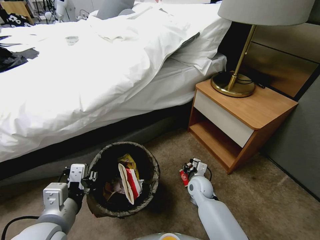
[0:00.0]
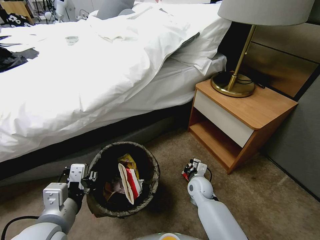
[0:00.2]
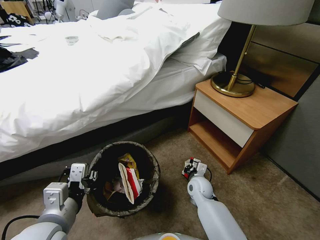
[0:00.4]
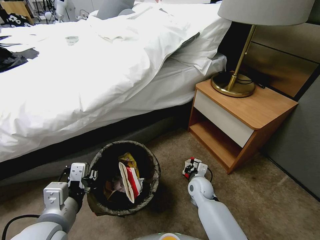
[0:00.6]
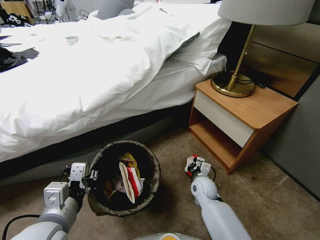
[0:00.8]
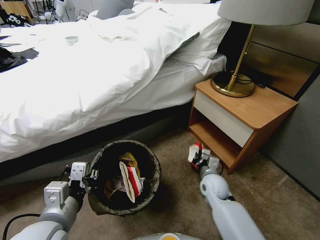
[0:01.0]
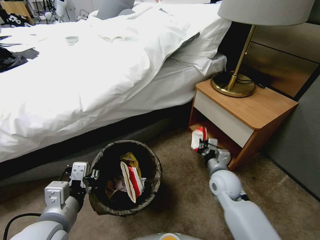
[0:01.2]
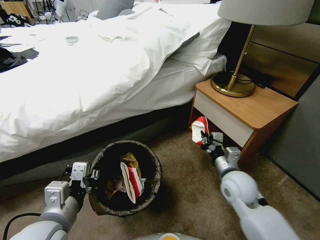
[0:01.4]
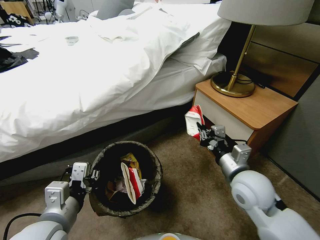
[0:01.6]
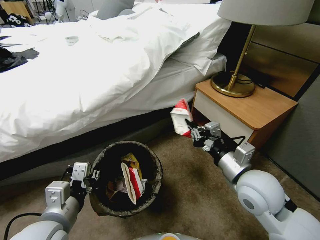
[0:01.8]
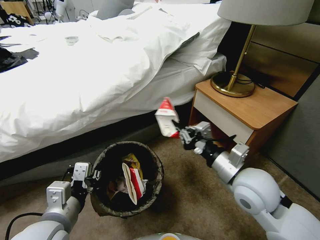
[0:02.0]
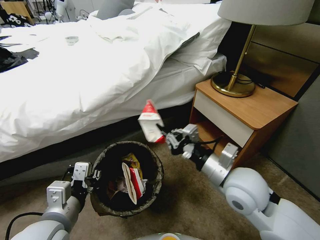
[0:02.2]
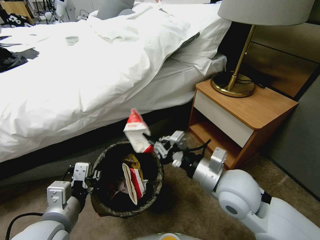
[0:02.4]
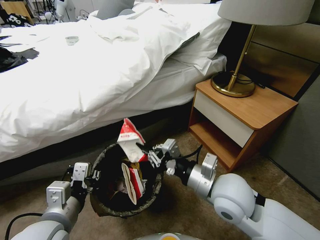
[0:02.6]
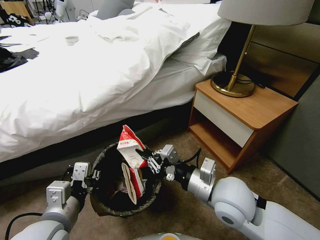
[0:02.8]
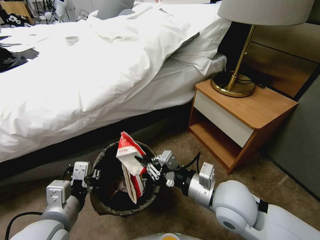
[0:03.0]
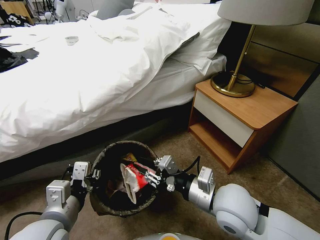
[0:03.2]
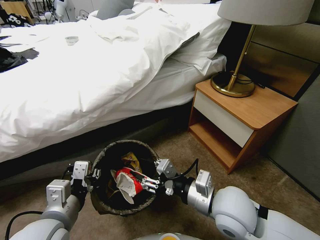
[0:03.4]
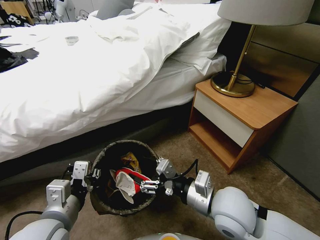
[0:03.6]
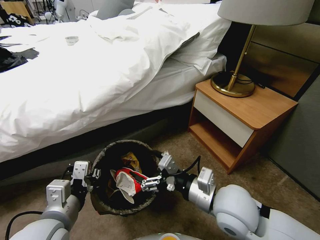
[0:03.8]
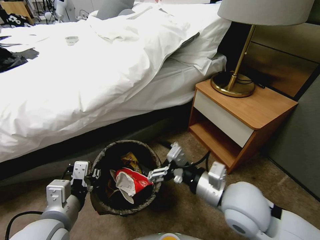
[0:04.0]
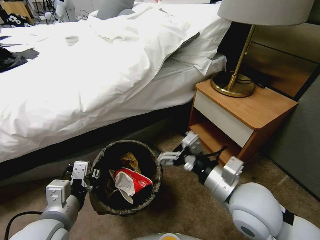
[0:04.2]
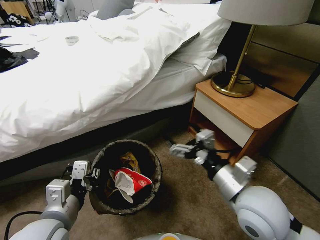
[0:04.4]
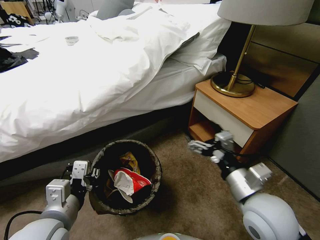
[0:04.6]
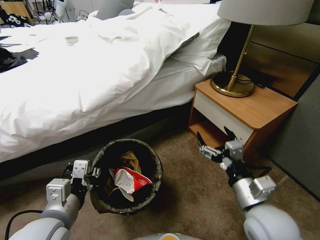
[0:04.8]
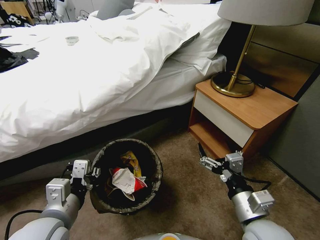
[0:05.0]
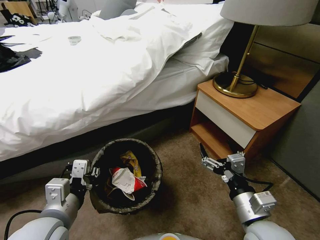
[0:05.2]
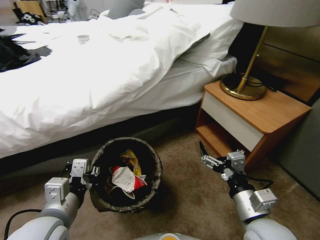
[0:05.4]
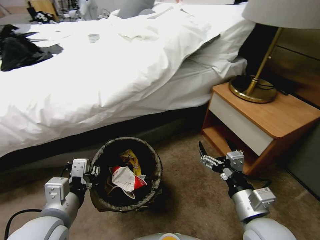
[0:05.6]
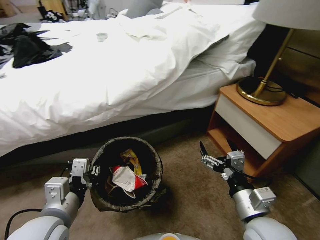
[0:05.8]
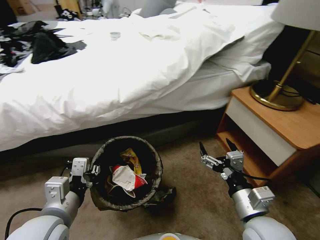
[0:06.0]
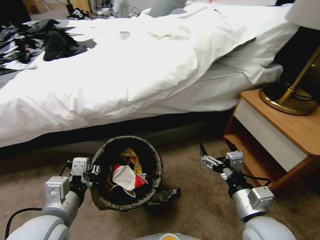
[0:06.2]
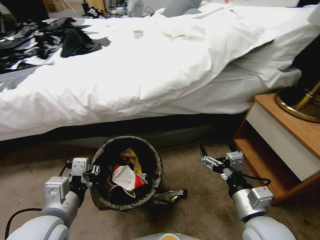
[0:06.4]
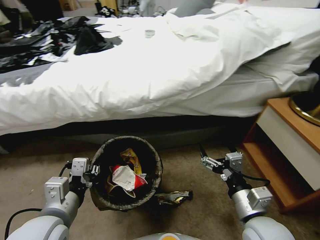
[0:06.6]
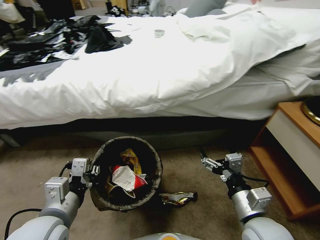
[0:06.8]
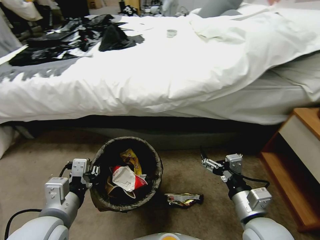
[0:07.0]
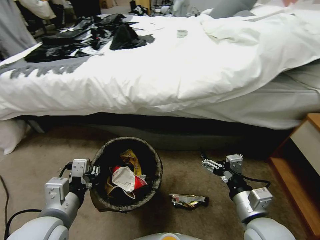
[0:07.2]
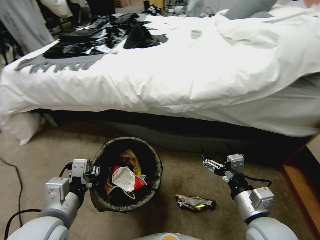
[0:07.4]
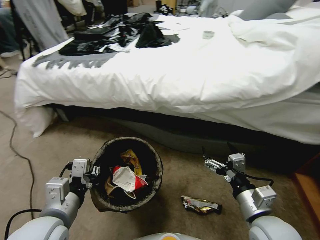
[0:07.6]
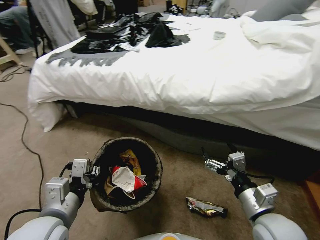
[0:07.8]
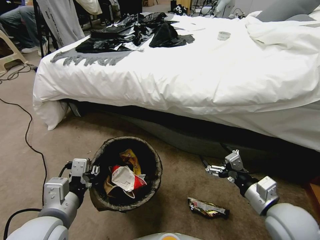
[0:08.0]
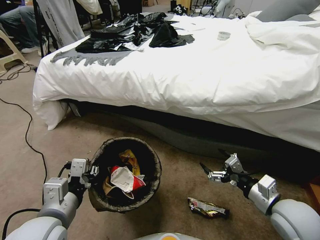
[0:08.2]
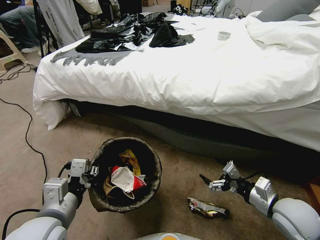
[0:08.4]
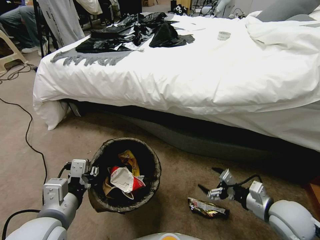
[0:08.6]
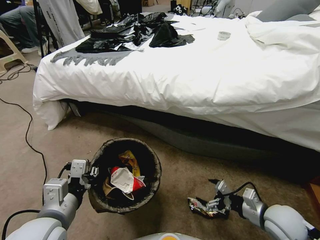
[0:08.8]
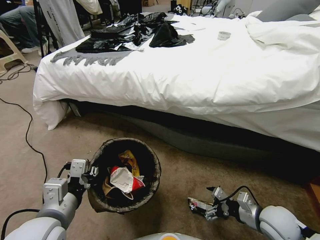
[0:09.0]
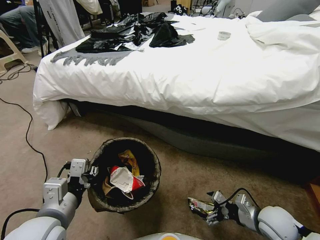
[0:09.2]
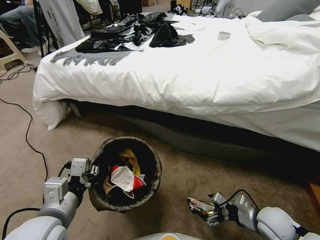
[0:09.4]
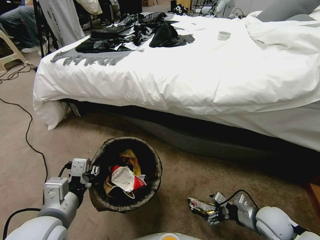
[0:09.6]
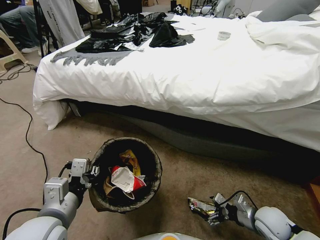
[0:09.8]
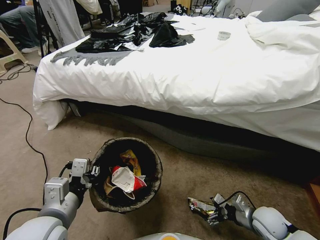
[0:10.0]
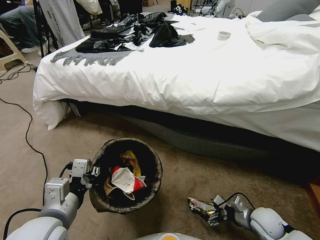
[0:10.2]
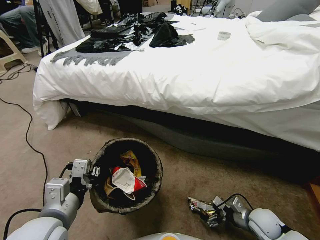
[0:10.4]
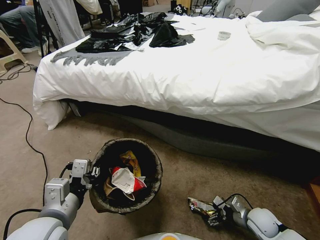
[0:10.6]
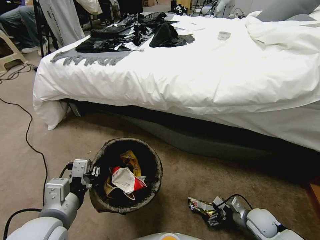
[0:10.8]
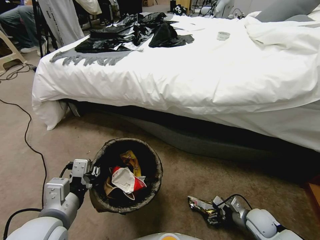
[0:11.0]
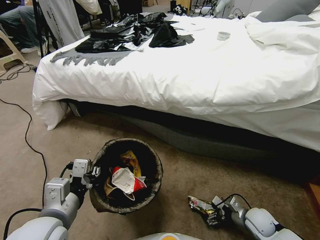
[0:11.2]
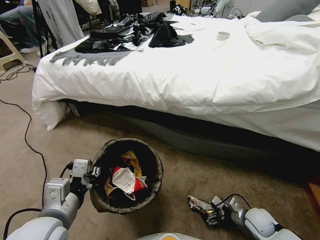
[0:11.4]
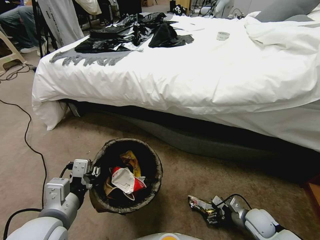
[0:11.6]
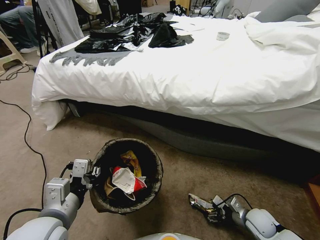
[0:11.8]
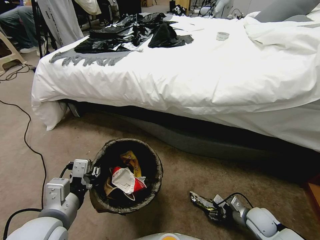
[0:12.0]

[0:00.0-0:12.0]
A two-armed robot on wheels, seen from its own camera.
Task of the whole recording: Pick up the trash bin, then pick up the garbage from the floor and place it into the trash bin.
0:00.0 to 0:01.6: The right gripper heads upward, covering some 25 cm, and closes its fingers.
0:01.6 to 0:03.0: The right gripper goes about 5 cm to the left.
0:03.0 to 0:04.4: The right gripper shifts by roughly 5 cm, and opens.
0:04.4 to 0:06.0: The right gripper is displaced downward by some 5 cm.
0:07.6 to 0:09.0: The right gripper travels downward and to the right by some 15 cm.
0:09.0 to 0:10.4: The right gripper heads downward, covering roughly 10 cm.
0:10.4 to 0:12.0: The right gripper closes its fingers.

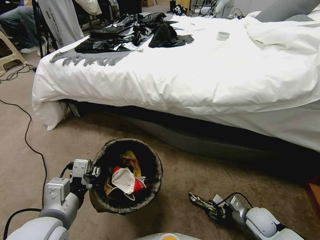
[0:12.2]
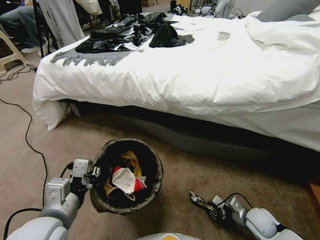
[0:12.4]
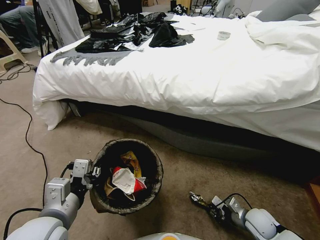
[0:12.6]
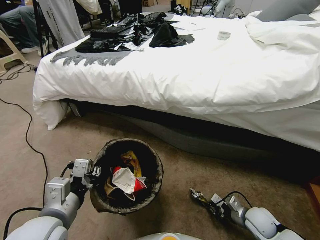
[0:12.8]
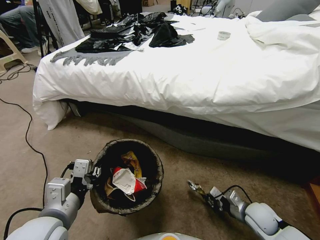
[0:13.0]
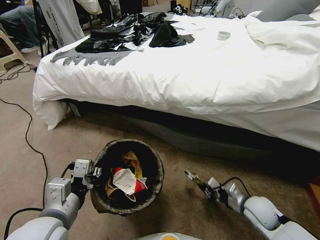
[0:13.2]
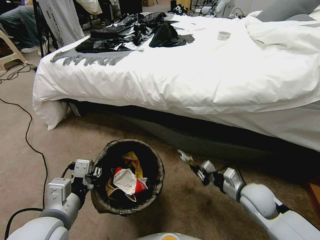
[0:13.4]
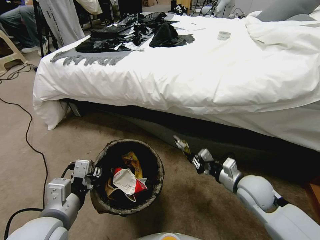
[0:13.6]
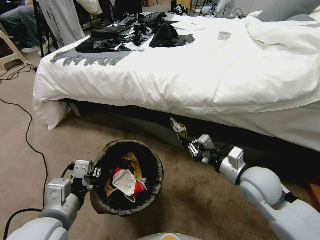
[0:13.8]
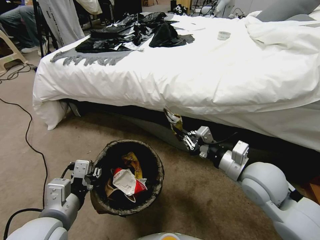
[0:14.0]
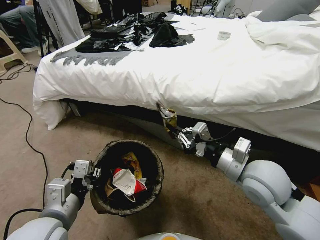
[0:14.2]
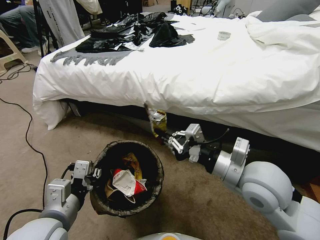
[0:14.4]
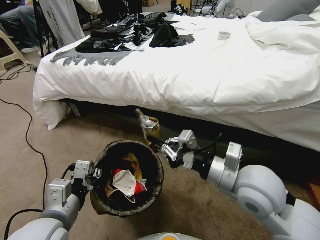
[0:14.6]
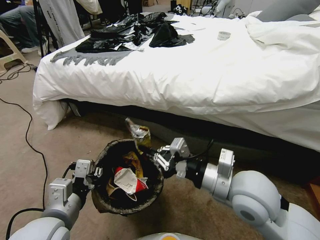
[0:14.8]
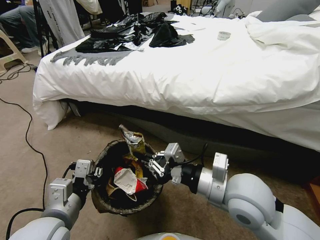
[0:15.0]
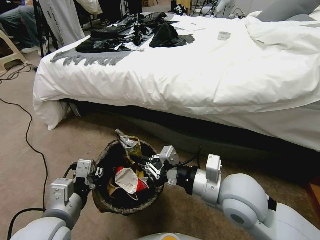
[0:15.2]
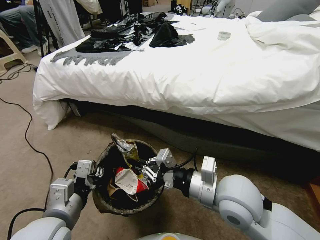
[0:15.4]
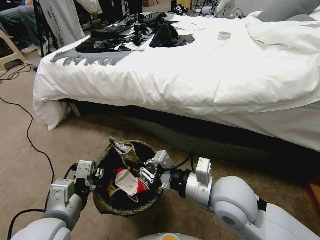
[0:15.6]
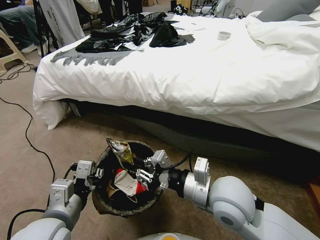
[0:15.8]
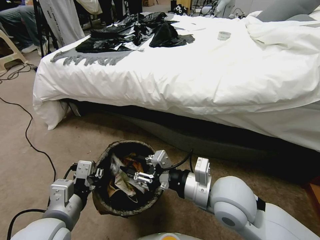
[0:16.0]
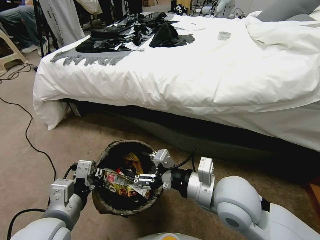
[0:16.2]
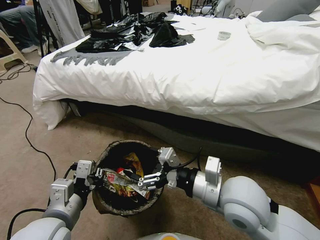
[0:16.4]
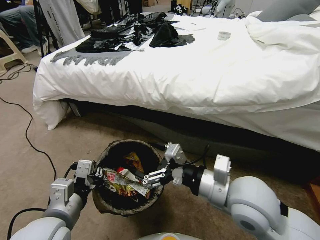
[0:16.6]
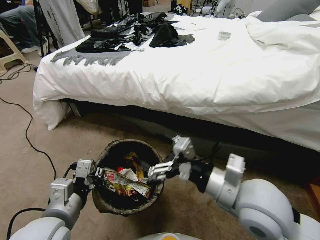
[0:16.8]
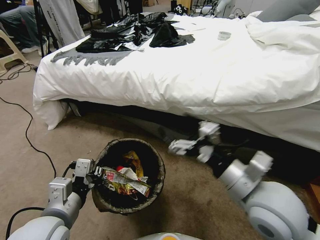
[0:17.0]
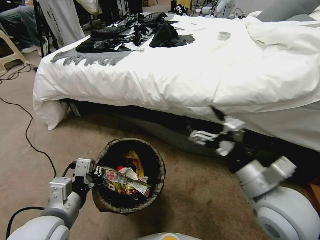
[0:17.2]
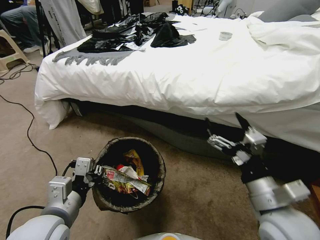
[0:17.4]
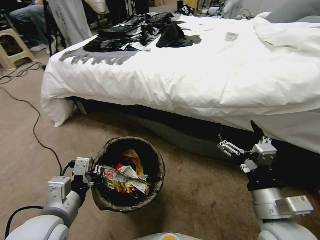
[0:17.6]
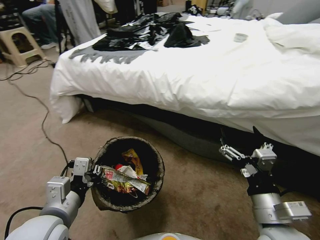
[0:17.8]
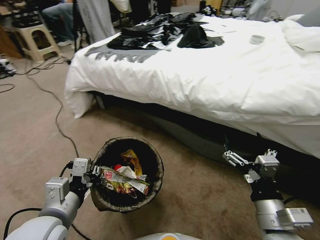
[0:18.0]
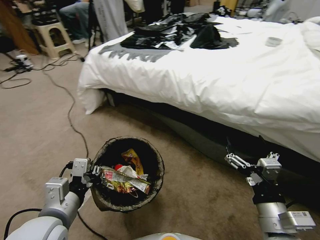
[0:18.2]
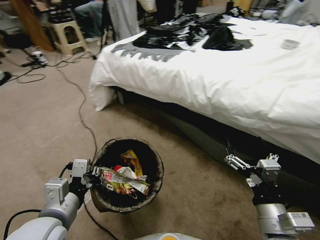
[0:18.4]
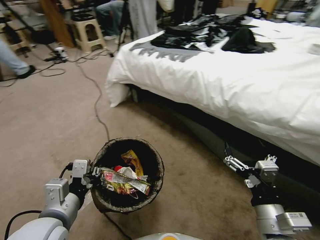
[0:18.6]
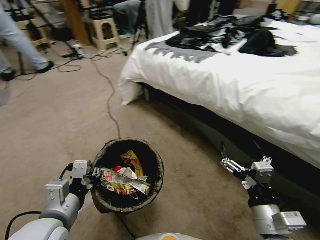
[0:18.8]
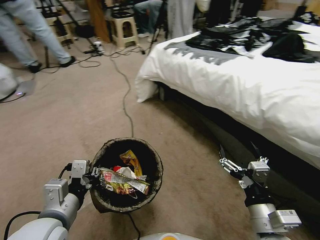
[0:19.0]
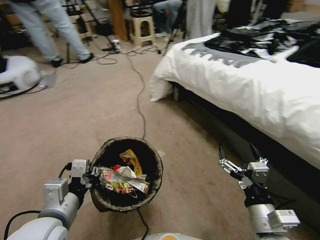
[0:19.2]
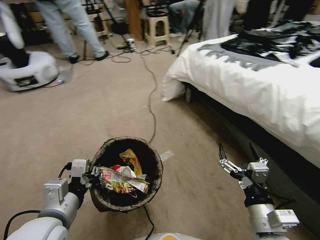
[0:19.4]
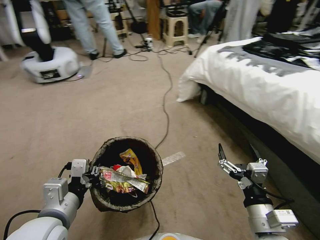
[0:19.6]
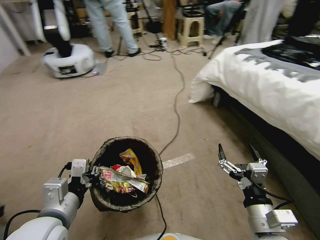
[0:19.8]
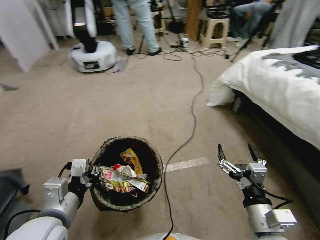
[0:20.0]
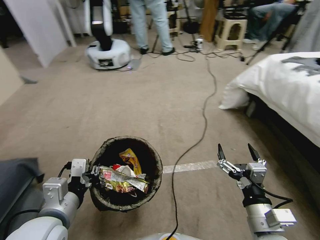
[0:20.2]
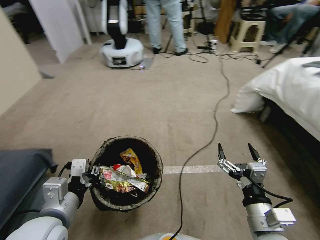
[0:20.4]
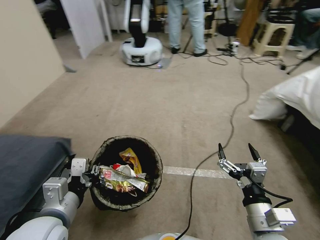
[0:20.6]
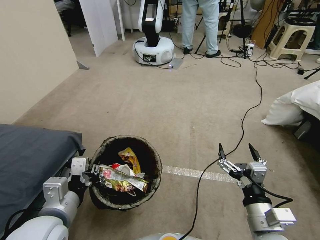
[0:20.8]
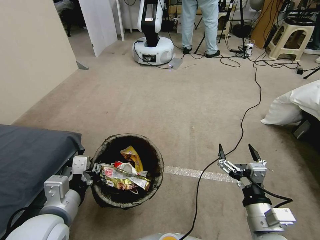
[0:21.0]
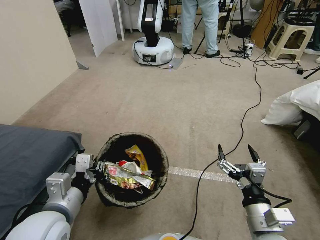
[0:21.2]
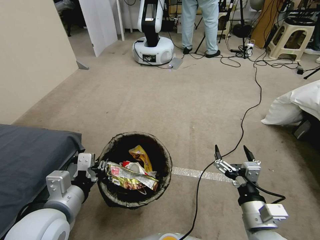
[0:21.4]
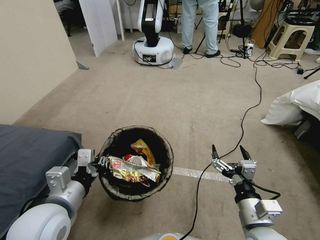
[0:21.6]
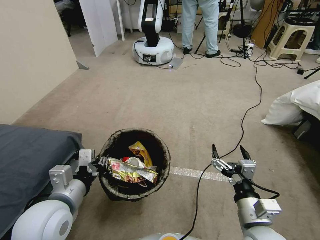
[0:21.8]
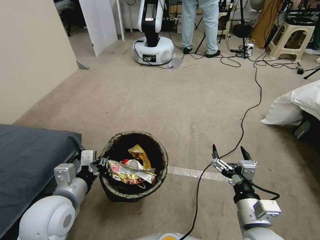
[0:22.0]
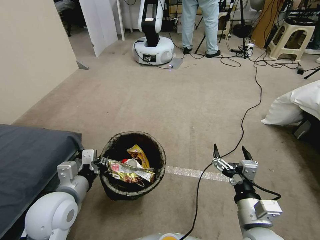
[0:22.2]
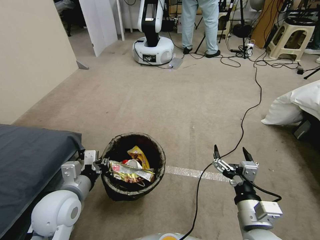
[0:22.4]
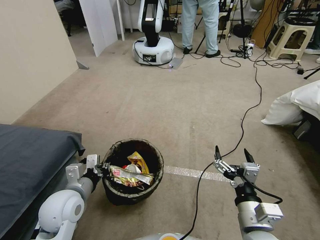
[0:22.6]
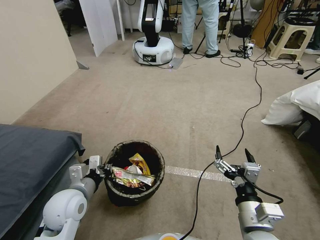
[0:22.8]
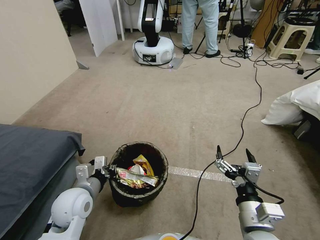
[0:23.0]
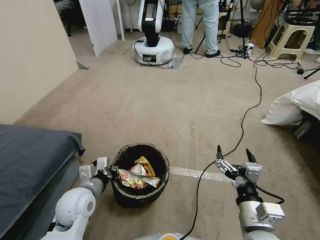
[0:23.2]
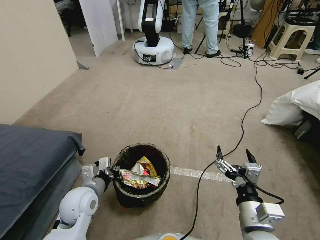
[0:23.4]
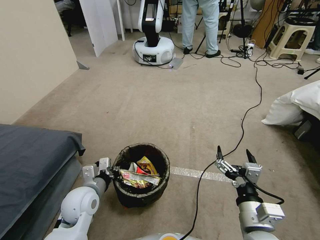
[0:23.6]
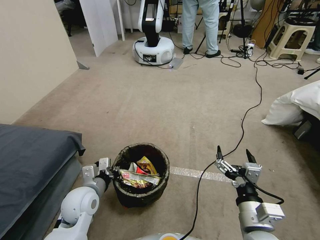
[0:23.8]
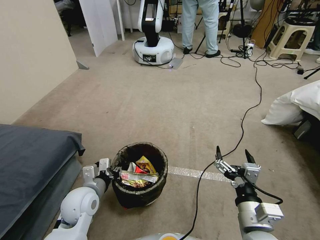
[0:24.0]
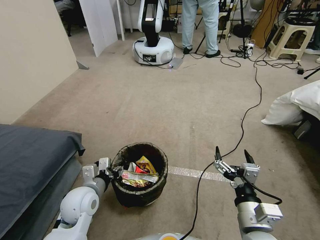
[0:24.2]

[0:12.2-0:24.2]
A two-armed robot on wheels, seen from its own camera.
Task of the whole recording: Pick up the trash bin, then pick up the garbage from the floor and place it into the trash bin.
0:12.2 to 0:13.8: The right gripper goes about 25 cm upward and to the left, and closes up.
0:13.8 to 0:15.2: The right gripper is displaced to the left, upward and backward by approximately 15 cm.
0:15.2 to 0:16.6: The right gripper opens.
0:16.6 to 0:18.2: The right gripper shifts roughly 15 cm backward, to the right and downward.
0:21.2 to 0:22.6: The left gripper is displaced downward and forward by some 10 cm.
0:22.6 to 0:24.2: The left gripper moves about 5 cm, and opens.
